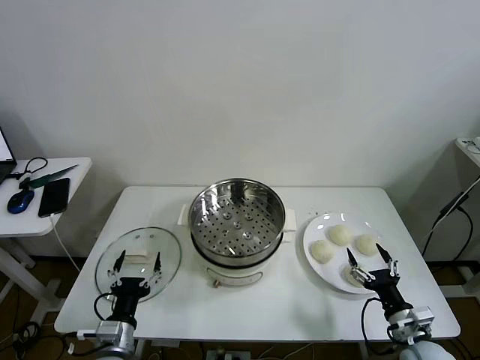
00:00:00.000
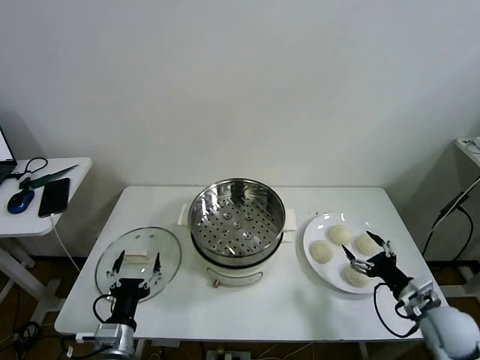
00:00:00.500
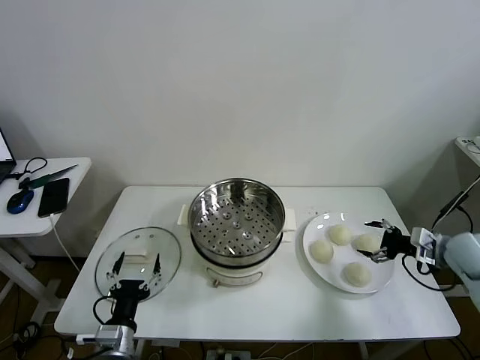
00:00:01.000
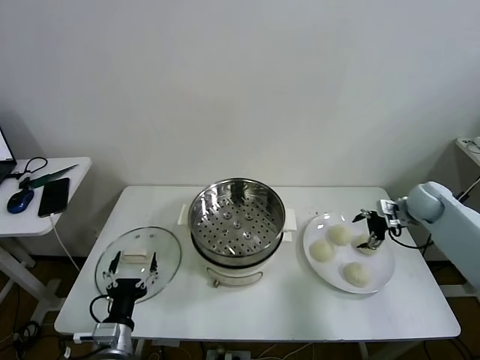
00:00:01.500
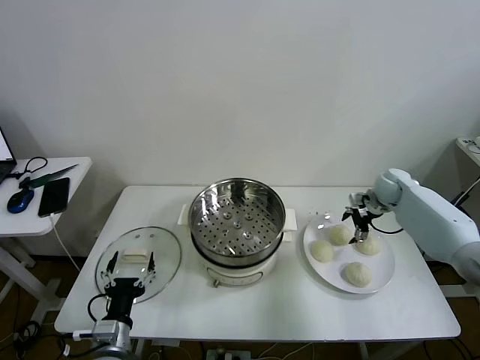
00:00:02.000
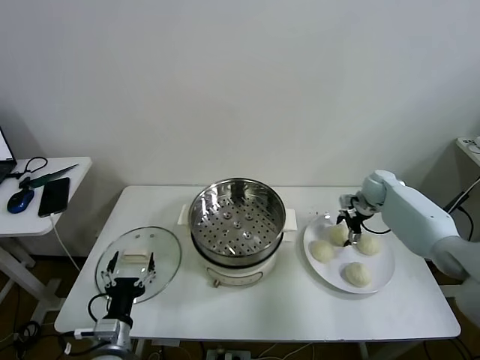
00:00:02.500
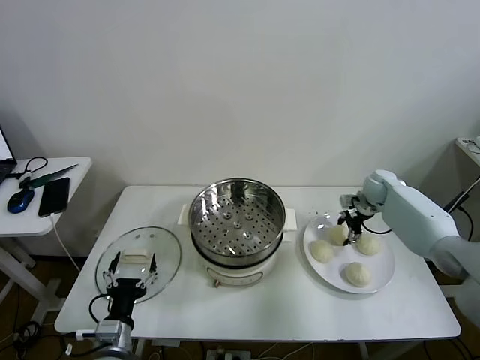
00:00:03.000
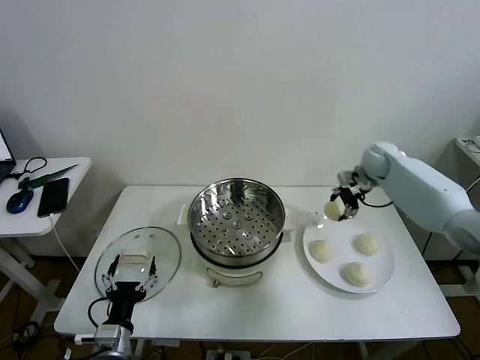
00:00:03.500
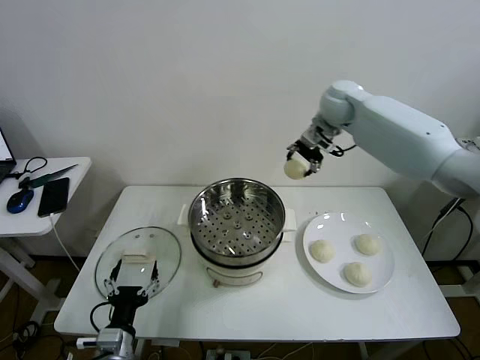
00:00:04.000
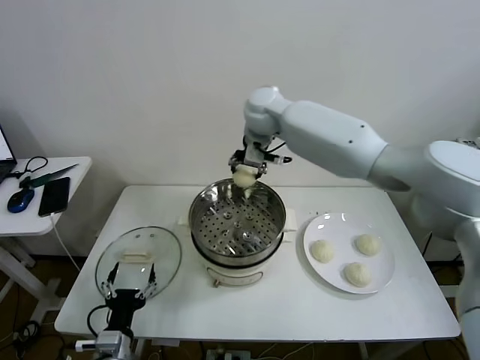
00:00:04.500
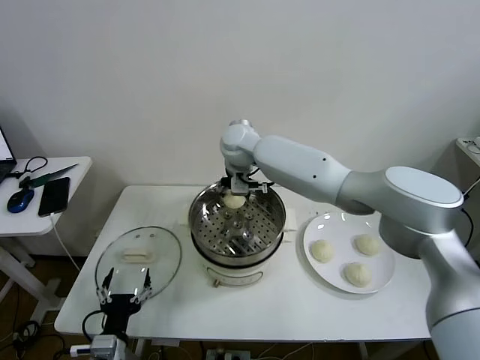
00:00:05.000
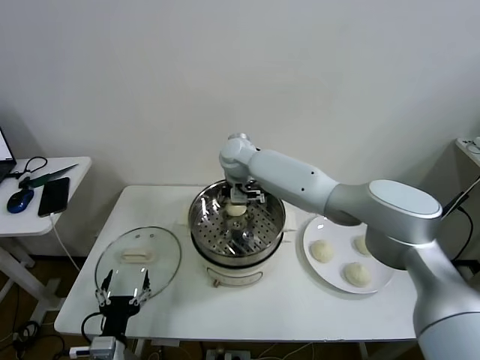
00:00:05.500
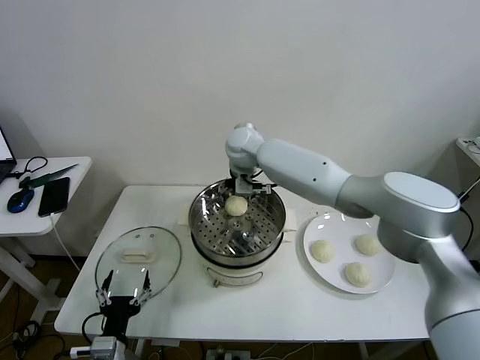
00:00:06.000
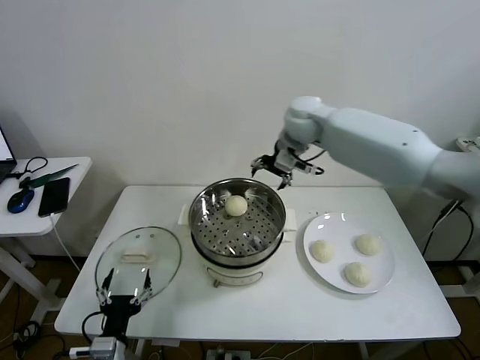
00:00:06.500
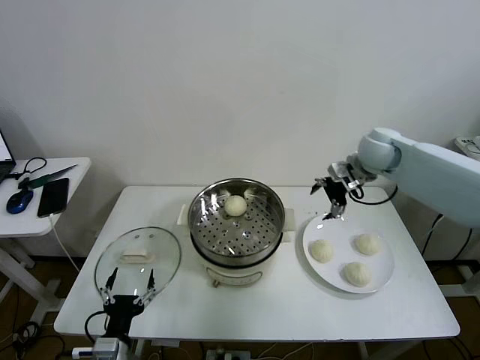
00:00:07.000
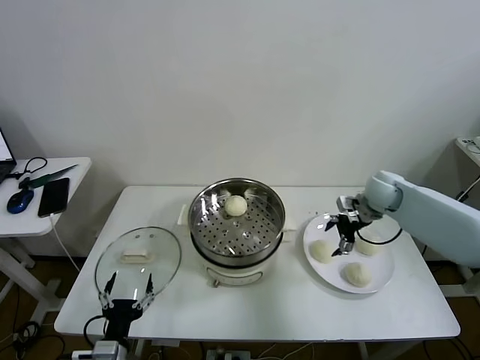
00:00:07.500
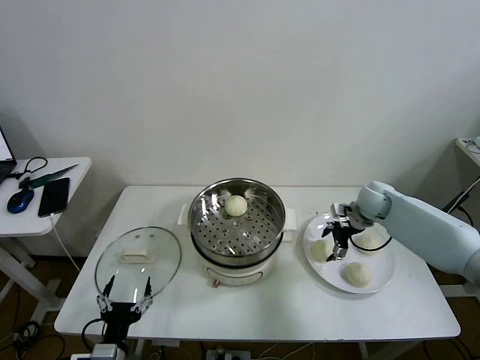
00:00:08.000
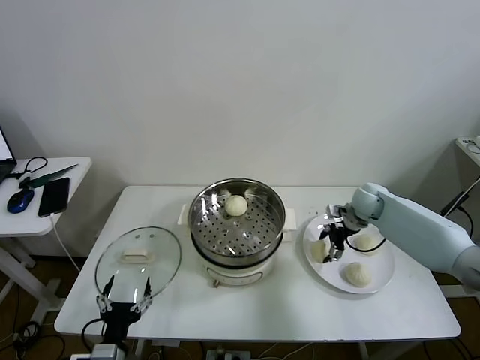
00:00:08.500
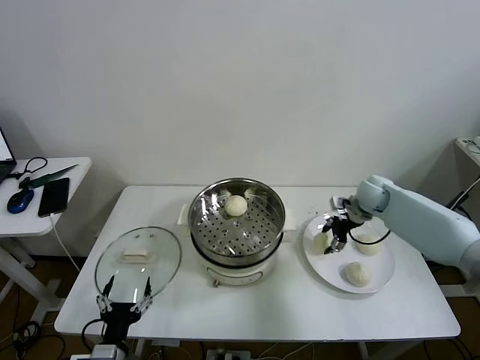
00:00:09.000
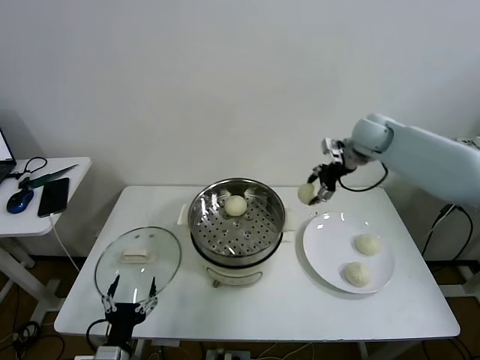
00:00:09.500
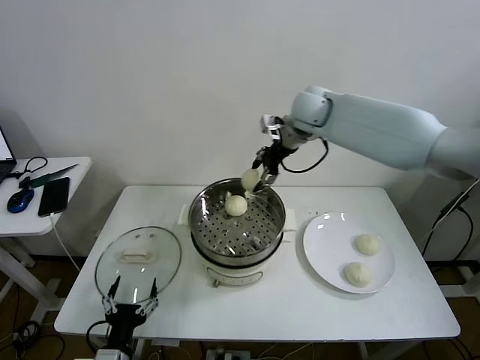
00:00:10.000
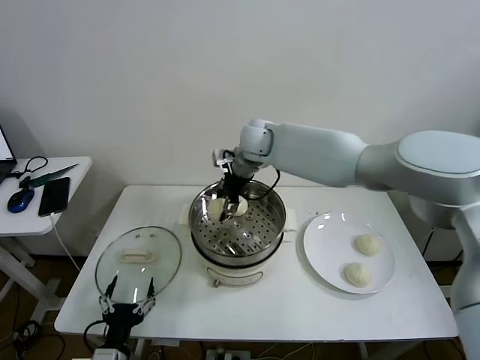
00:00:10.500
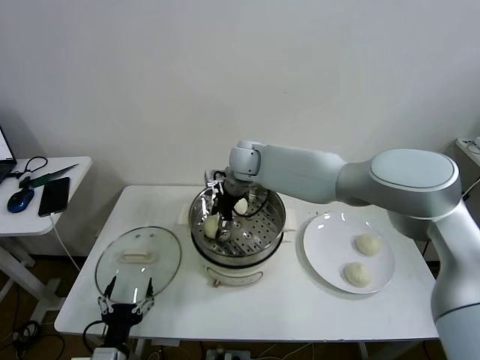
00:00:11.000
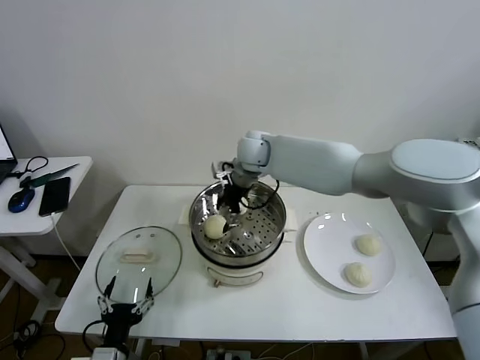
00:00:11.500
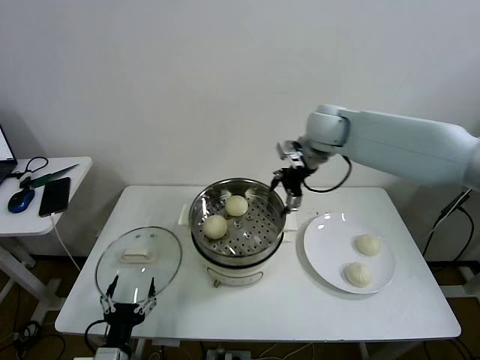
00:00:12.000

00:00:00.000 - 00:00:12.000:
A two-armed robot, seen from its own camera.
Task of the whole recording: take steamed baozi put them in steamer then cover it.
Step, 00:00:00.000 - 00:00:03.000: Grasp the baozi in the plate with right gripper.
Step, 00:00:03.500 - 00:00:05.500: Place the baozi on the steamer with right gripper.
Step, 00:00:06.000 - 00:00:08.500: Grasp the baozi in the plate with right gripper.
Step, 00:00:09.000 - 00:00:11.000: Place the baozi on the steamer with right gripper.
00:00:02.000 - 00:00:04.000: The right gripper travels upward and to the left by roughly 35 cm, and closes its fingers.
00:00:04.000 - 00:00:06.000: The right gripper goes about 15 cm to the left and downward, and opens its fingers.
00:00:06.000 - 00:00:08.000: The right gripper shifts about 35 cm to the right and downward.
00:00:08.000 - 00:00:10.000: The right gripper shifts approximately 35 cm to the left and upward, and closes.
00:00:10.000 - 00:00:12.000: The right gripper moves to the right, roughly 15 cm, and opens its fingers.

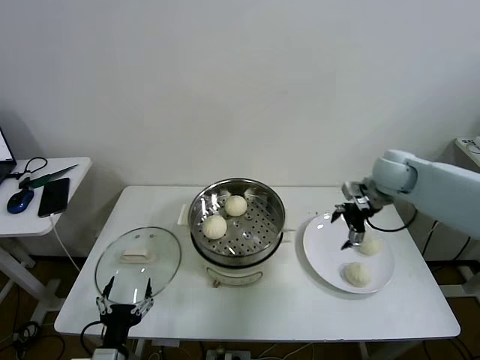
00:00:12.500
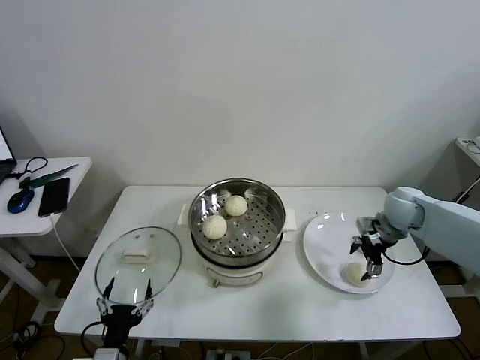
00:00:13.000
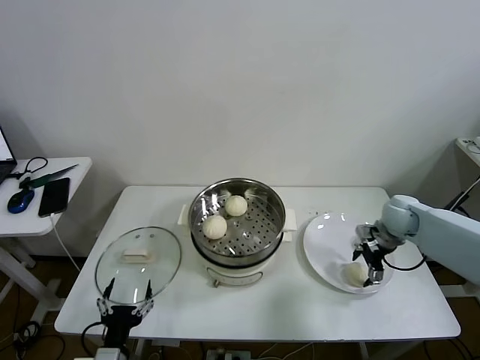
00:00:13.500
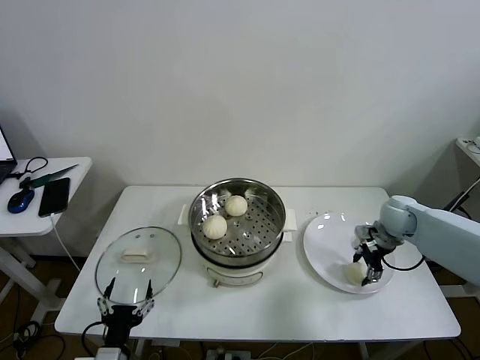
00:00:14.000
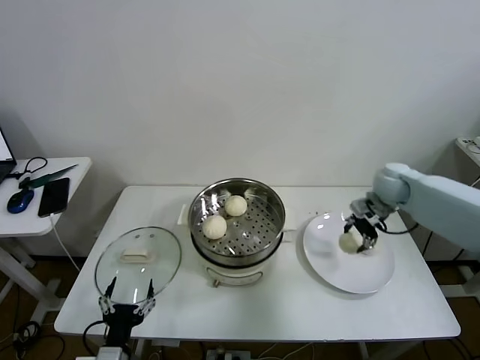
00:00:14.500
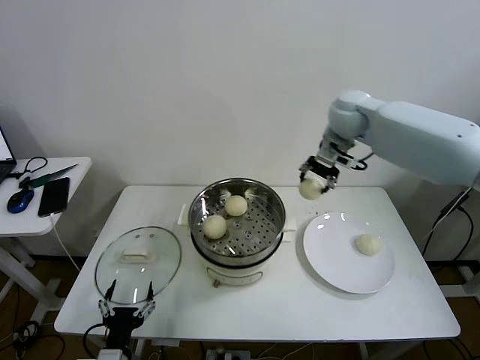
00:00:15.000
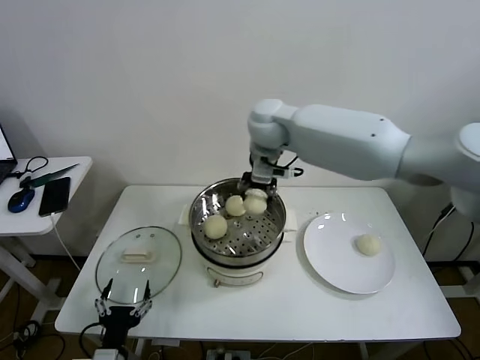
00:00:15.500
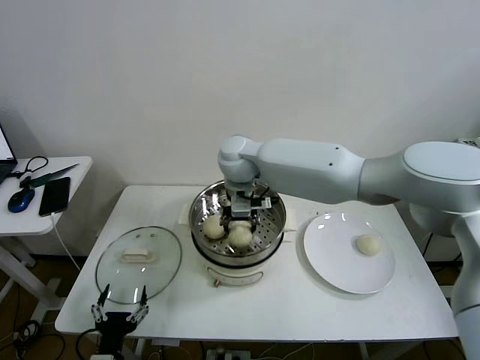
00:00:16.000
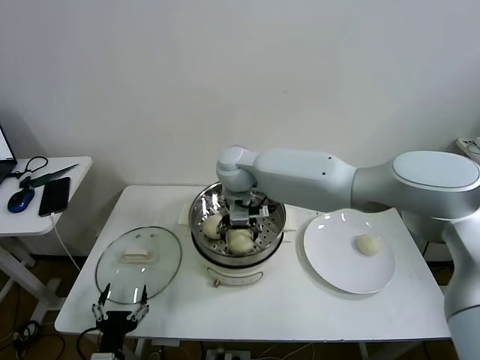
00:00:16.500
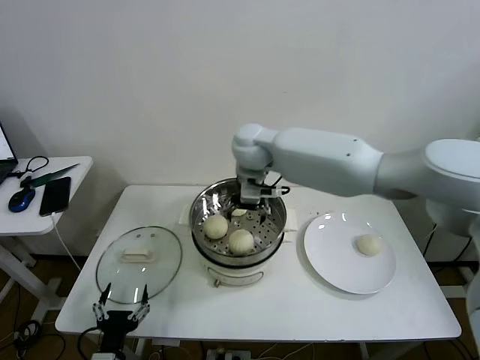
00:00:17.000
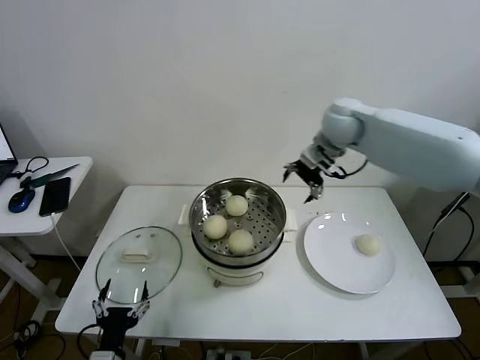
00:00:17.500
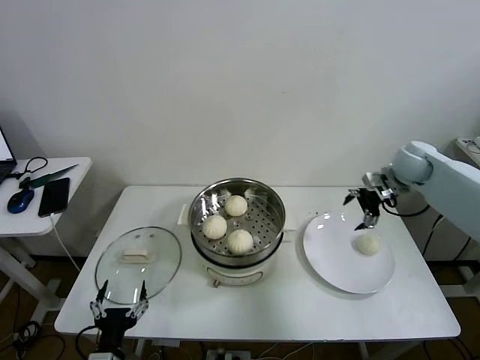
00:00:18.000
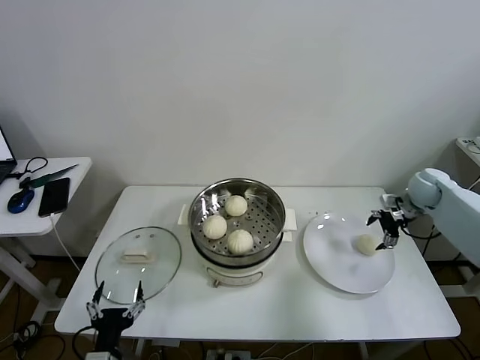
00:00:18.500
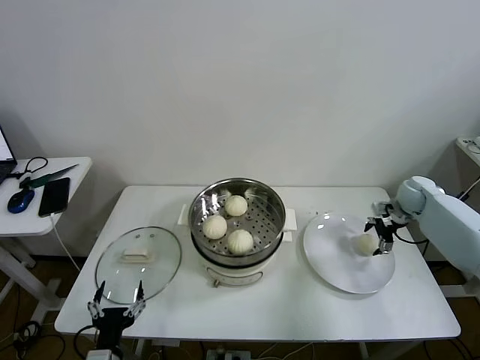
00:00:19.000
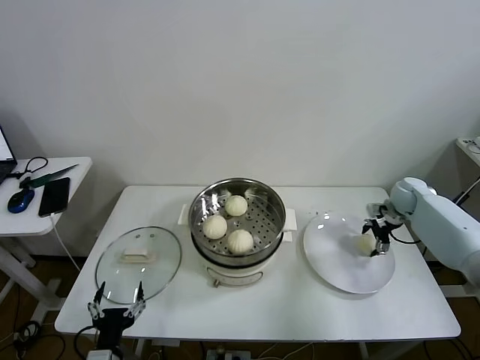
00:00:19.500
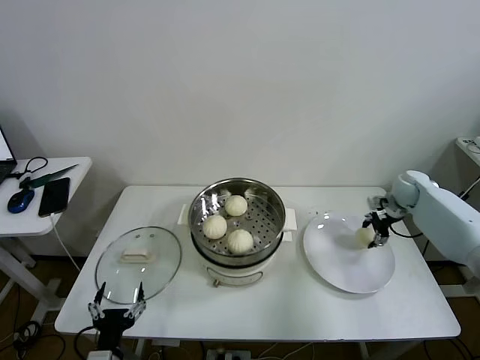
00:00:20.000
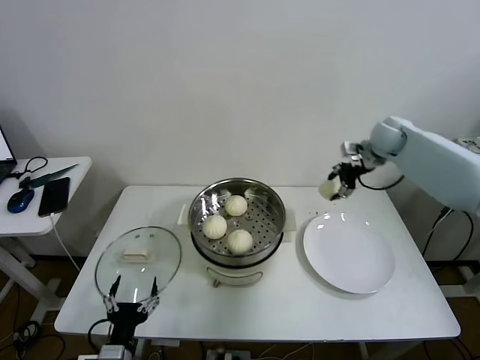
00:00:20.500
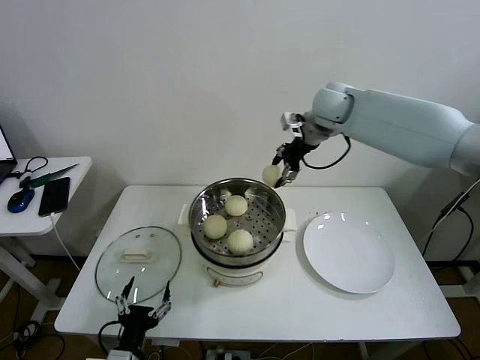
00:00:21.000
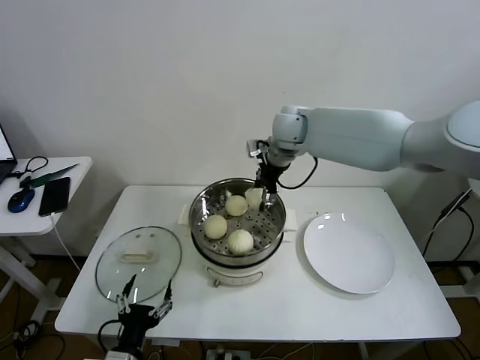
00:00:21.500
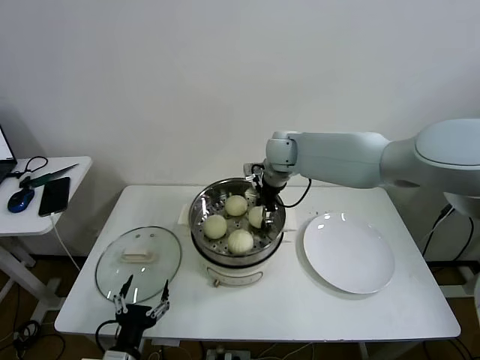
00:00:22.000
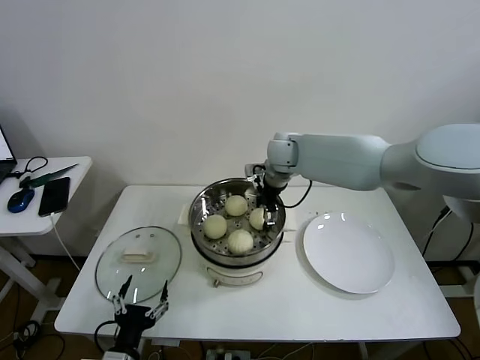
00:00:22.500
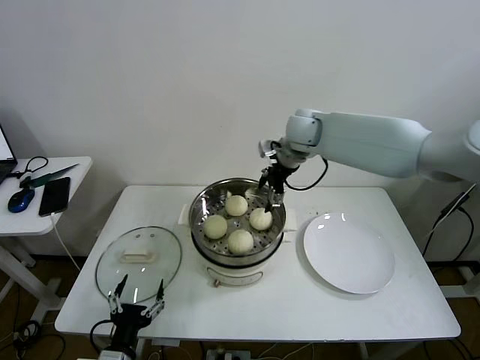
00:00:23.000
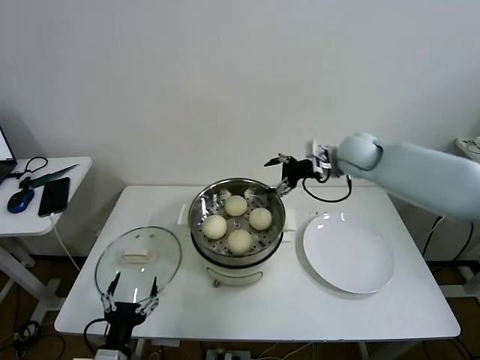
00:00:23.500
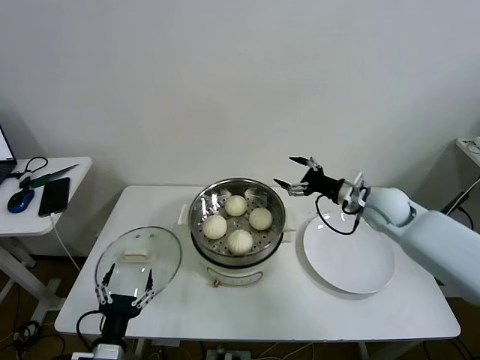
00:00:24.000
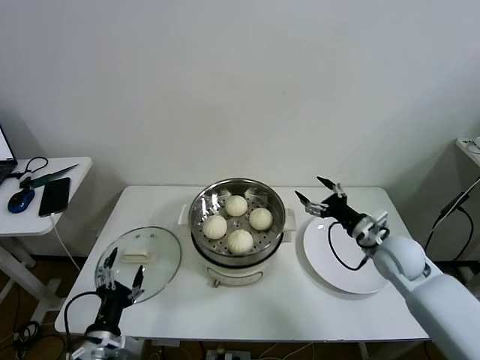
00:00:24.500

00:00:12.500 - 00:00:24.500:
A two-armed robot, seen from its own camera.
Task of the whole recording: take steamed baozi put them in steamer then cover it.
Step, 00:00:12.500 - 00:00:14.000: Grasp the baozi in the plate with right gripper.
Step, 00:00:14.500 - 00:00:16.500: Place the baozi on the steamer with right gripper.
Step, 00:00:17.000 - 00:00:19.500: Grasp the baozi in the plate with right gripper.
Step, 00:00:20.000 - 00:00:22.500: Place the baozi on the steamer with right gripper.
00:00:12.500 - 00:00:14.500: The right gripper moves about 10 cm downward and comes back, and closes up.
00:00:14.500 - 00:00:16.500: The right gripper shifts some 35 cm to the left, and opens up.
00:00:16.500 - 00:00:18.500: The right gripper shifts some 50 cm to the right.
00:00:18.500 - 00:00:20.500: The right gripper moves upward, to the left and forward, some 20 cm, and closes.
00:00:20.500 - 00:00:22.500: The right gripper shifts approximately 25 cm to the left, and opens.
00:00:22.500 - 00:00:24.500: The right gripper heads to the right, backward and downward, covering roughly 35 cm, while the left gripper shifts by some 5 cm.

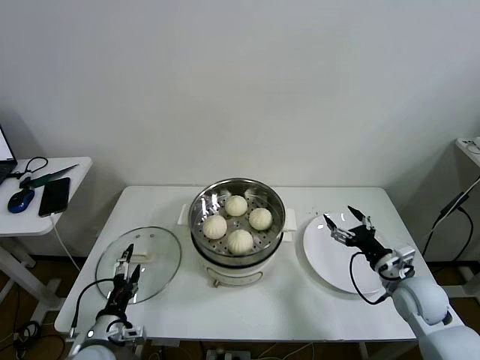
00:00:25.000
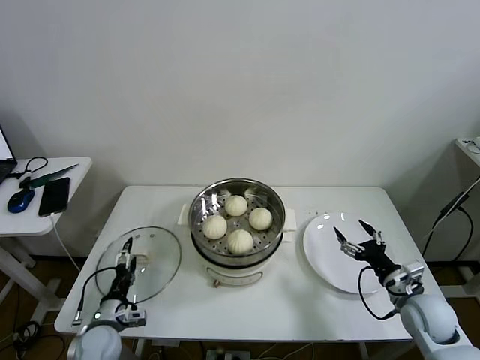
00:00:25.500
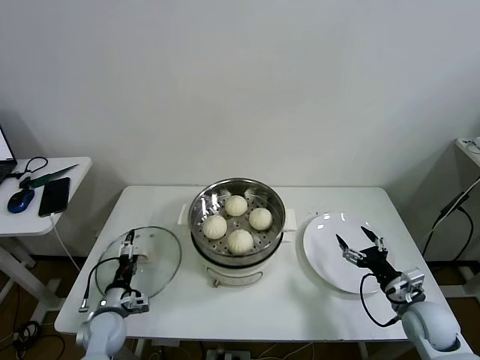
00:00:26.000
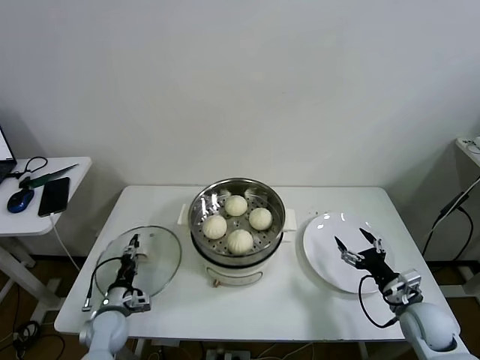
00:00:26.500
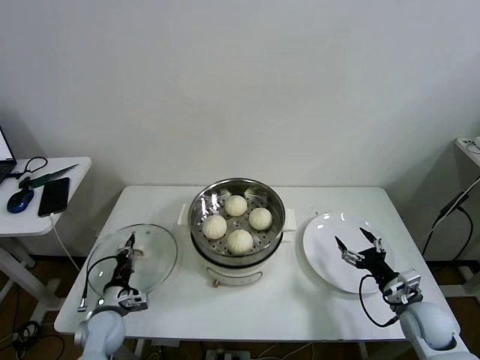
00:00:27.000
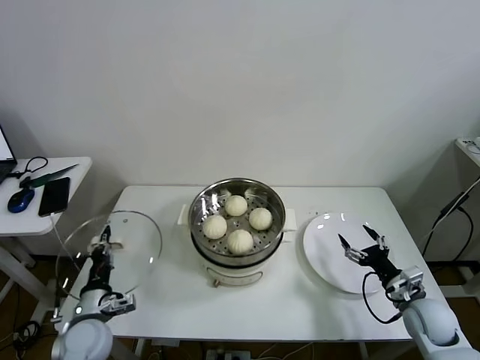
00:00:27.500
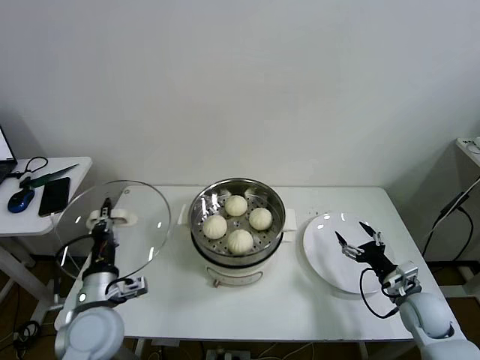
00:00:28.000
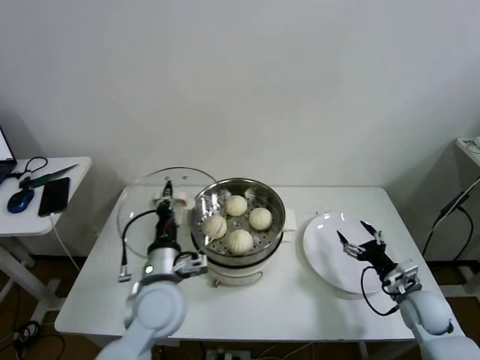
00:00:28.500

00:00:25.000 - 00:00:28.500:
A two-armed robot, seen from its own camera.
Task of the whole recording: take steamed baozi put them in steamer then cover it.
00:00:25.000 - 00:00:27.000: The left gripper shifts approximately 10 cm forward and downward, and closes. Meanwhile the right gripper shifts by approximately 5 cm.
00:00:27.000 - 00:00:28.500: The left gripper goes approximately 25 cm upward and to the right.
